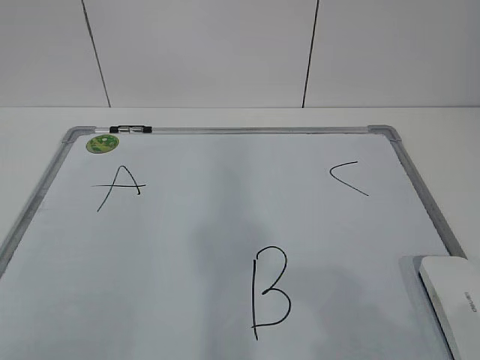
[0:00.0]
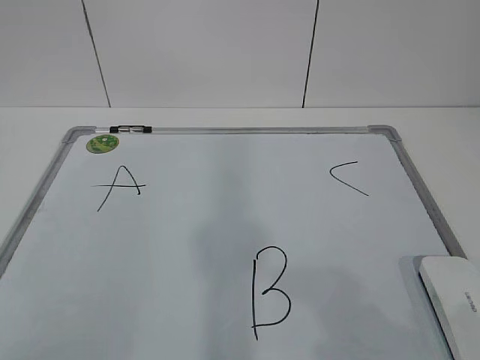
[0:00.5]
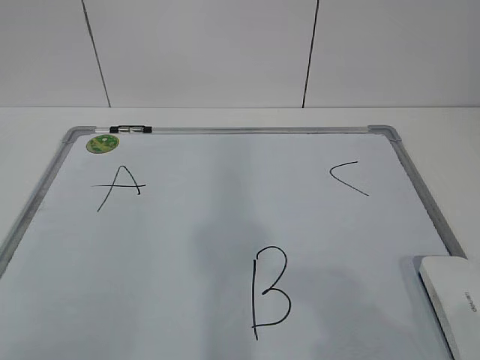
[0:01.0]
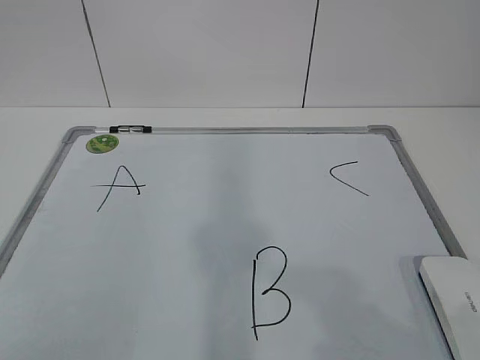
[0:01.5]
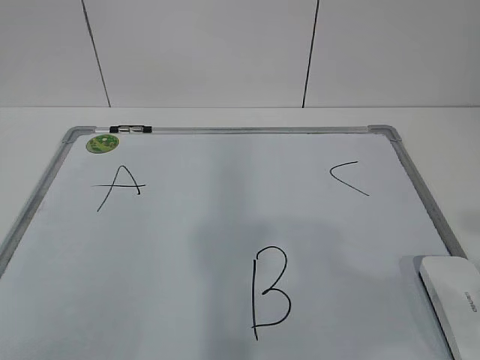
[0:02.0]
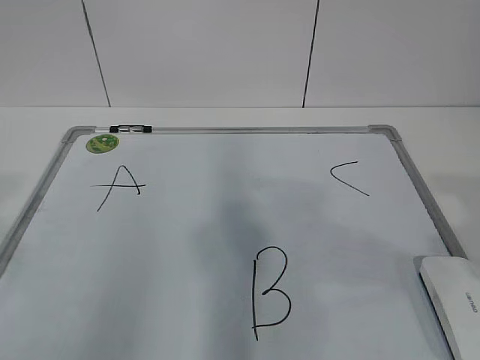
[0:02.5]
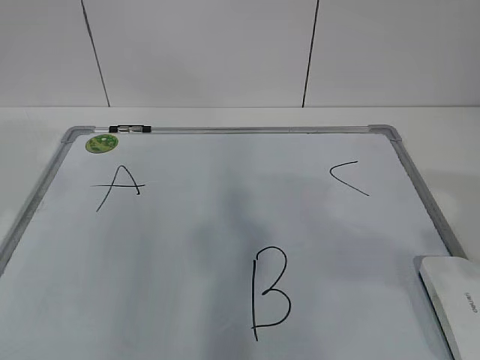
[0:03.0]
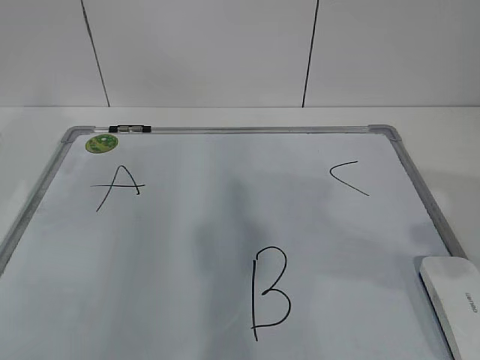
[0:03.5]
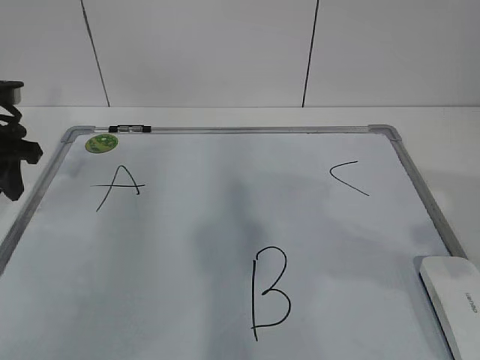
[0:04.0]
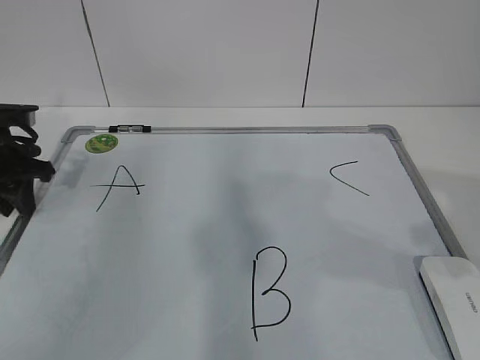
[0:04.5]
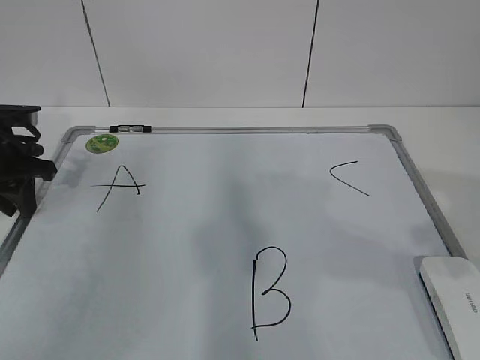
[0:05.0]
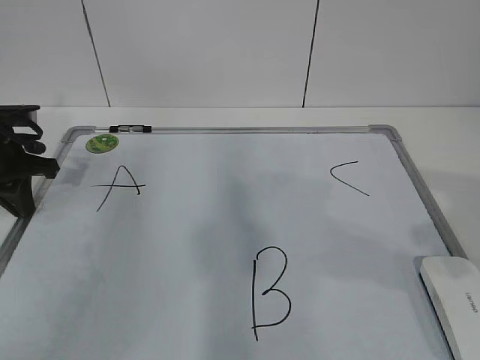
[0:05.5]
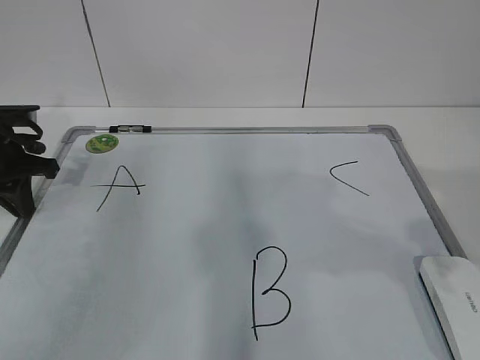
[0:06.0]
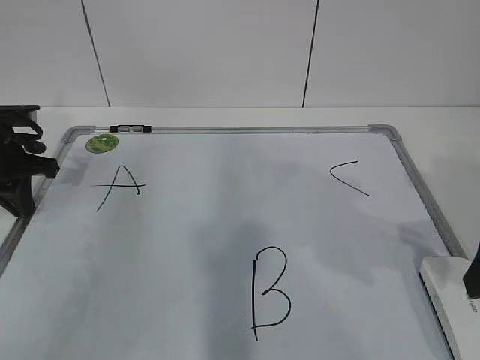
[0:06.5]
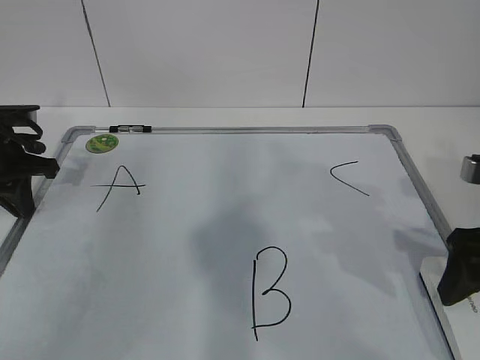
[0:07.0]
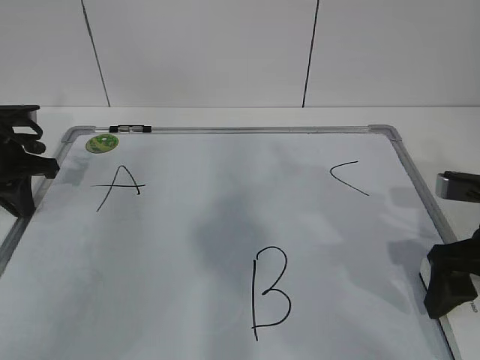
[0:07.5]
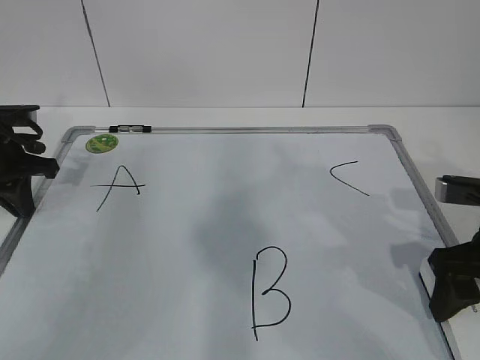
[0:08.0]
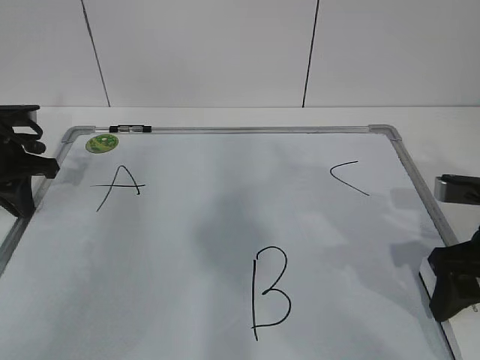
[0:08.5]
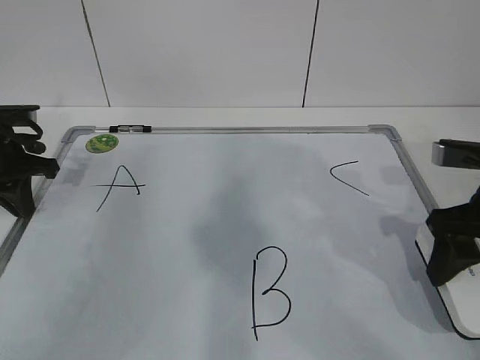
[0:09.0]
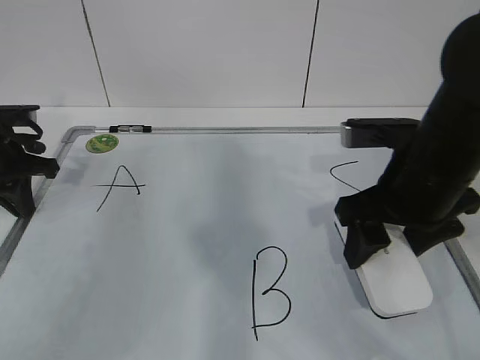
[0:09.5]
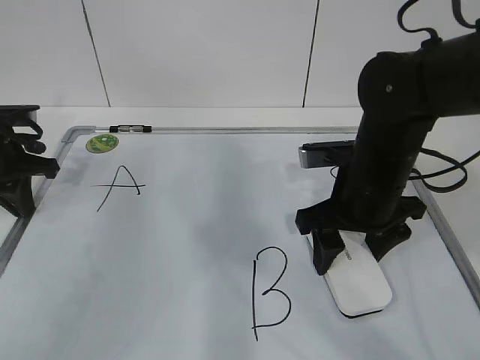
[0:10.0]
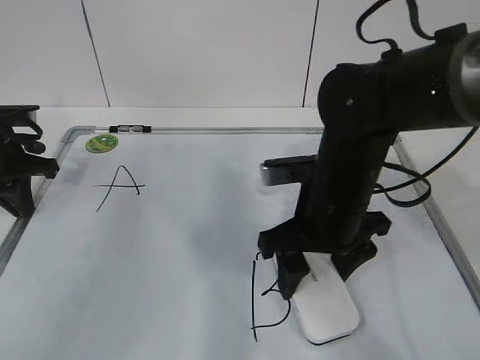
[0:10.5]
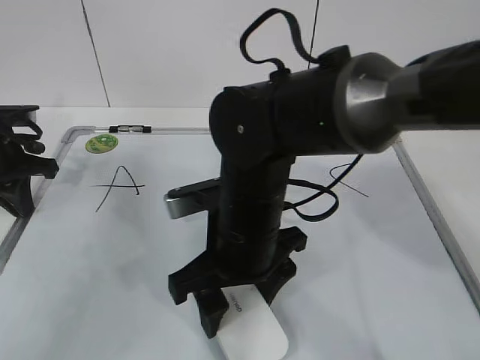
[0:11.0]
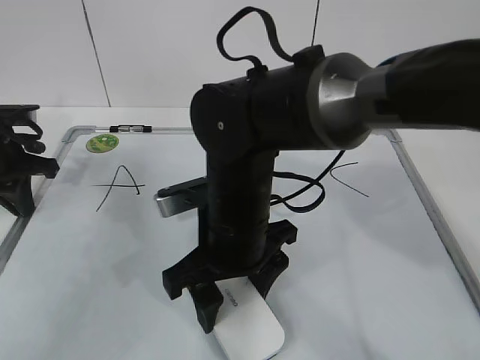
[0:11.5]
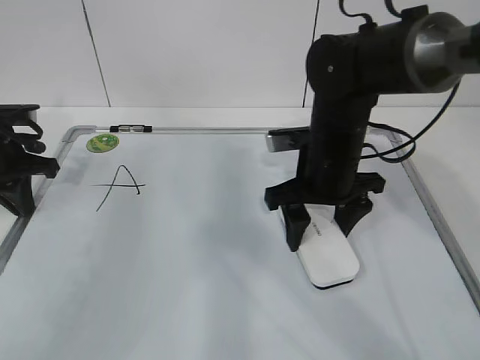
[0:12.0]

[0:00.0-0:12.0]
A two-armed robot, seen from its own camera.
Task of the whole recording: pick up the eraser on the blackboard and erase the letter "B".
Step, 0:00.0 to 0:04.0: Hold the drawing board steady with your left hand.
Step, 0:07.0 to 0:11.5: Erase the letter B with your right hand.
0:02.0 to 0:04.0: The left gripper moves forward, some 35 cm.
0:04.0 to 0:06.0: The left gripper closes.
0:06.0 to 0:08.0: The right gripper goes roughly 15 cm downward and forward, and closes its fingers.
0:08.0 to 0:10.0: The right gripper travels to the left and forward by some 15 cm, and closes.
0:10.0 to 0:12.0: The right gripper goes to the left and returns, some 15 cm each way.

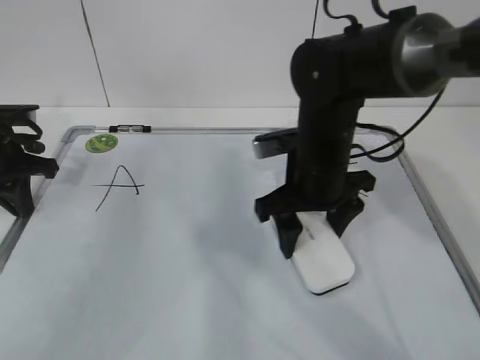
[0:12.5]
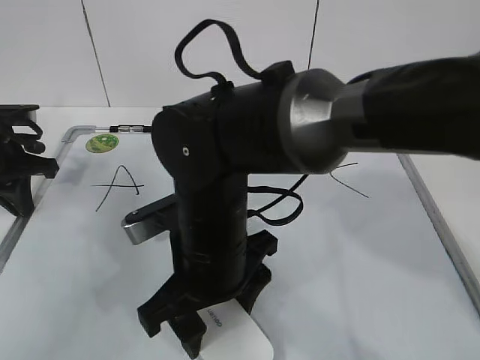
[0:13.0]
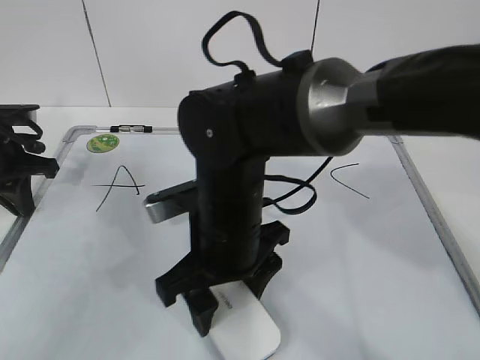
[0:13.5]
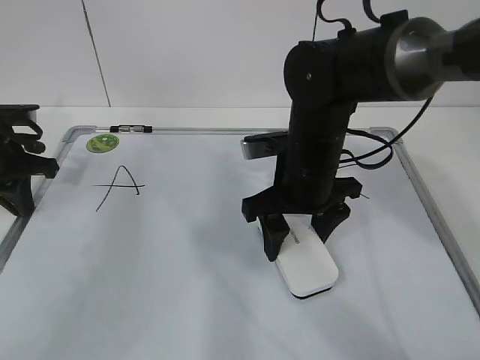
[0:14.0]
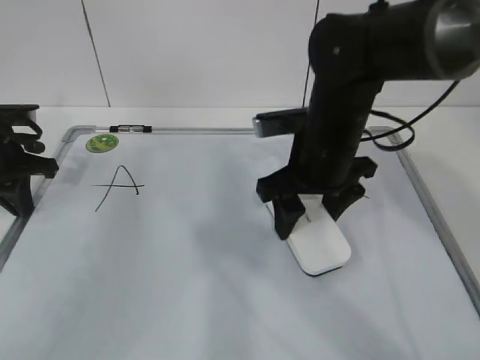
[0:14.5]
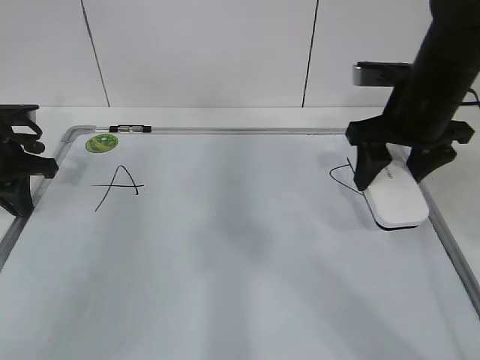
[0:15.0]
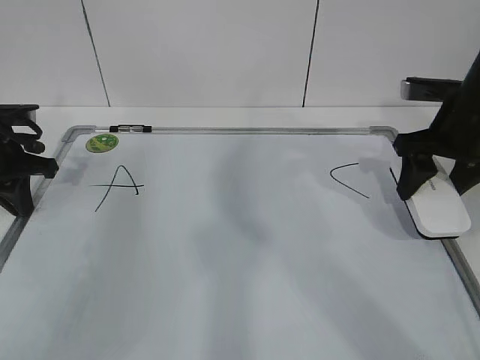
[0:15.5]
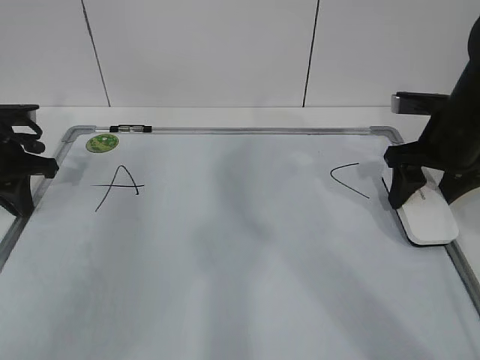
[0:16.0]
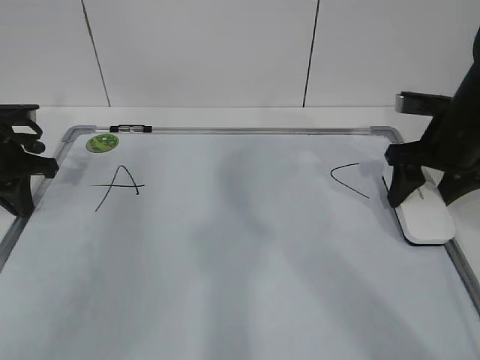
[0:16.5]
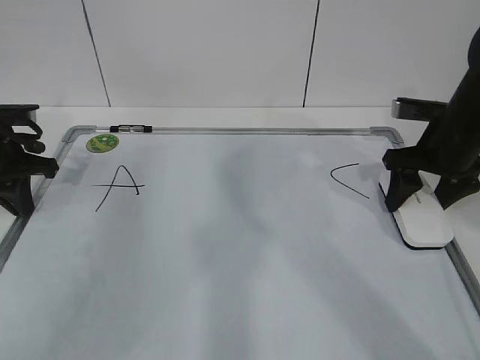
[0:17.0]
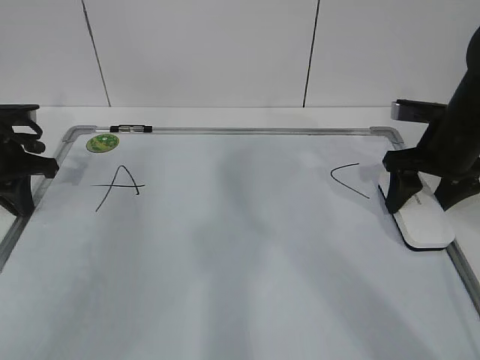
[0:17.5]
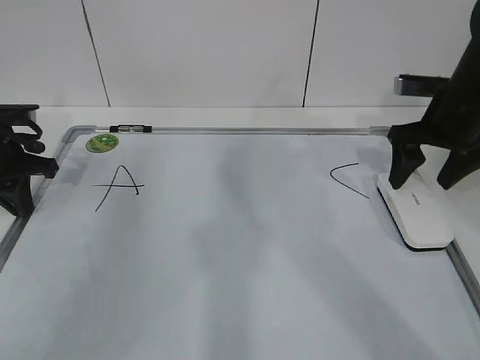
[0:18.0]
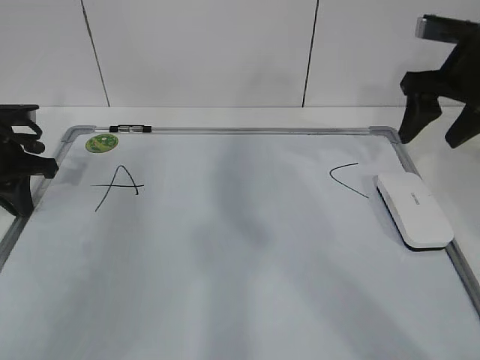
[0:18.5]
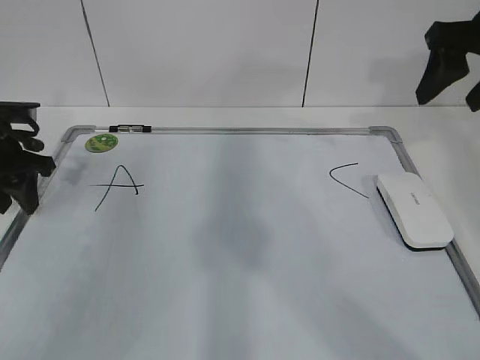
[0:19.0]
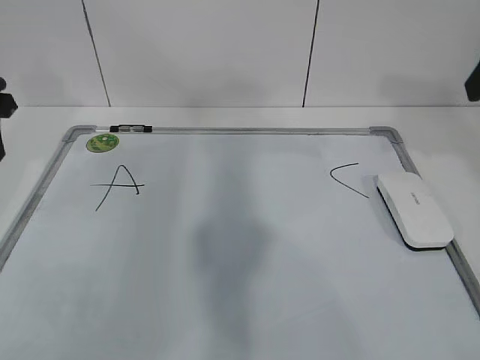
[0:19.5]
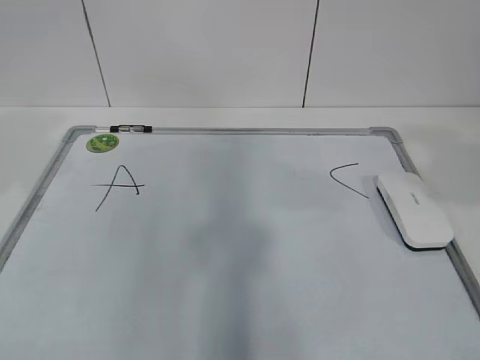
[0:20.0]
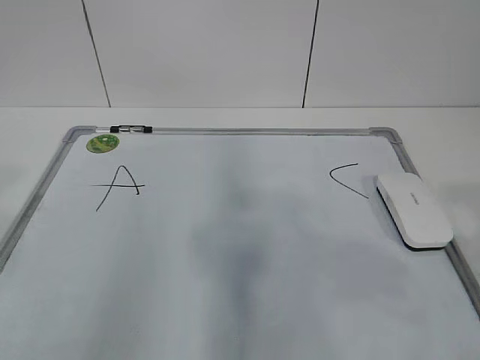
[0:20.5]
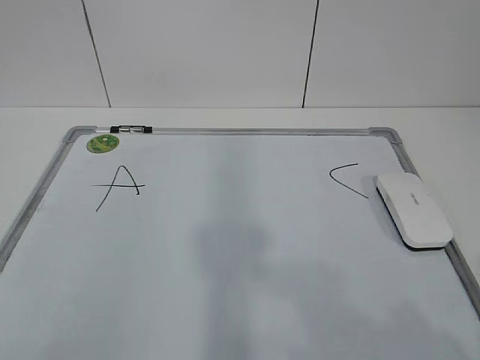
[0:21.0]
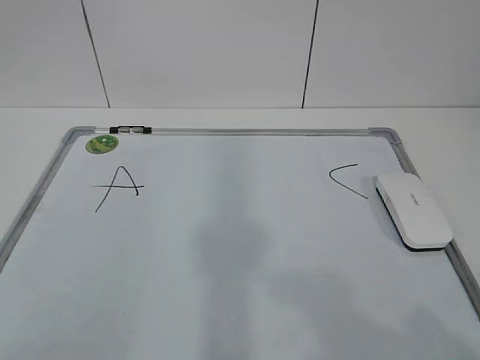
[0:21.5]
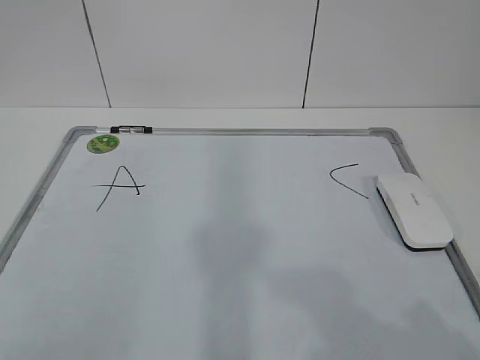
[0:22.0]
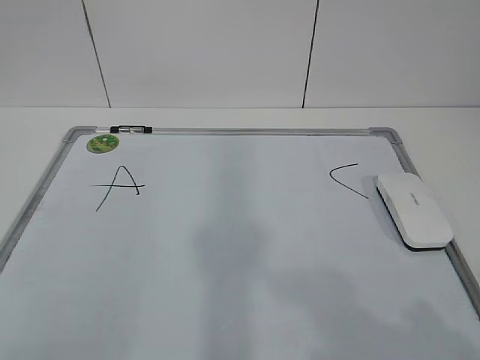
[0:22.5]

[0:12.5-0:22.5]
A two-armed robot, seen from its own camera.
Task of the whole recording: pick up the eraser on the blackboard and erase the letter "B".
Step, 0:12.5 to 0:14.5: Put down the eraser with your right hand.
0:12.5 to 0:14.5: The right gripper travels to the left and back again, roughly 10 cm each way.
0:14.5 to 0:16.5: The right gripper goes roughly 15 cm to the right.
0:16.5 to 0:18.5: The right gripper heads upward, covering some 10 cm, and opens up.
0:18.5 to 0:20.5: The left gripper travels backward and upward by approximately 35 cm, and opens up. The right gripper is displaced backward by about 30 cm.
0:20.5 to 0:22.5: The two grippers go roughly 10 cm backward and downward.
